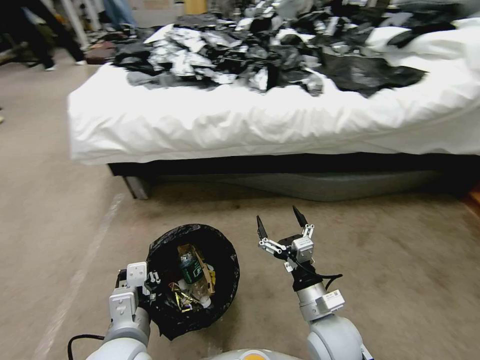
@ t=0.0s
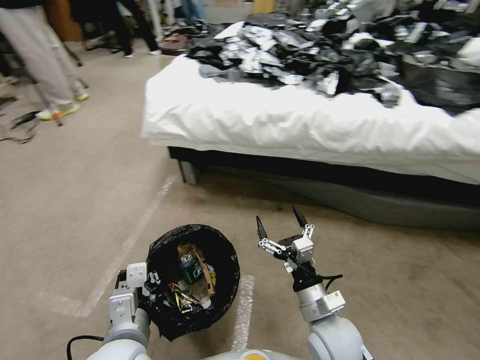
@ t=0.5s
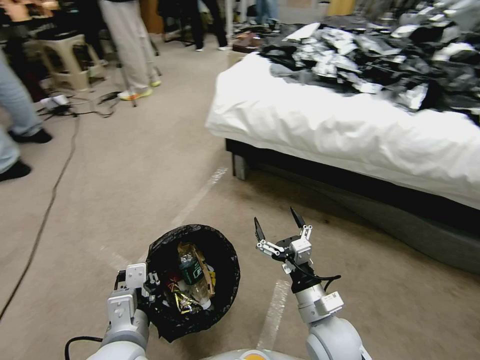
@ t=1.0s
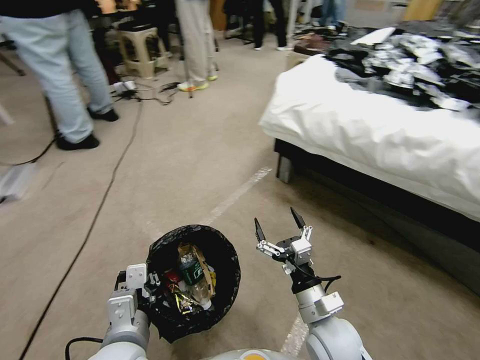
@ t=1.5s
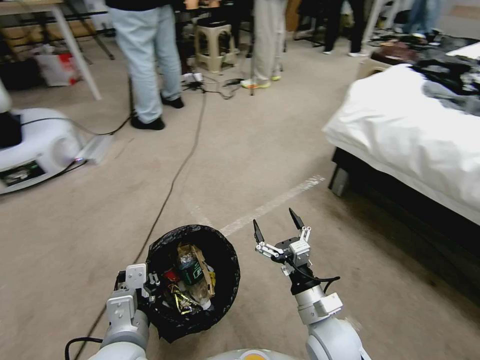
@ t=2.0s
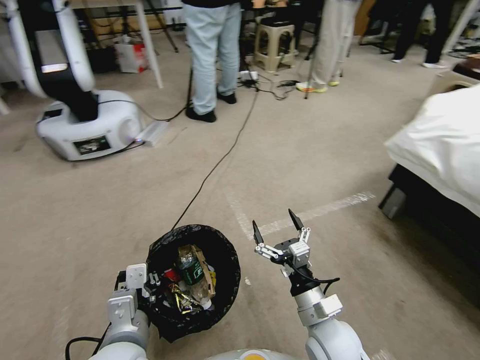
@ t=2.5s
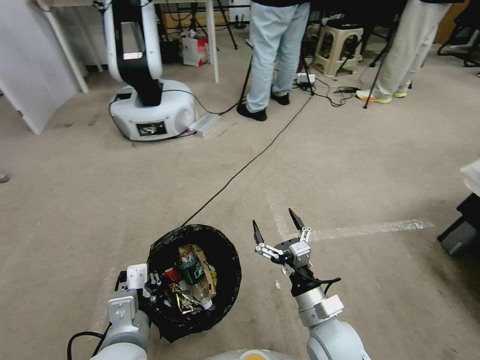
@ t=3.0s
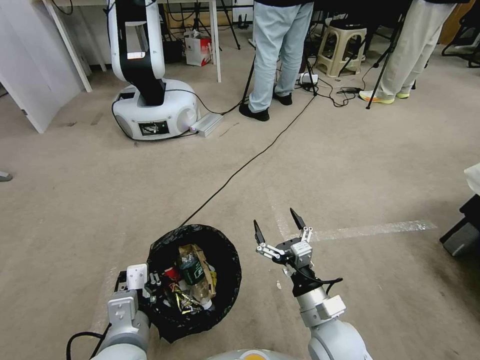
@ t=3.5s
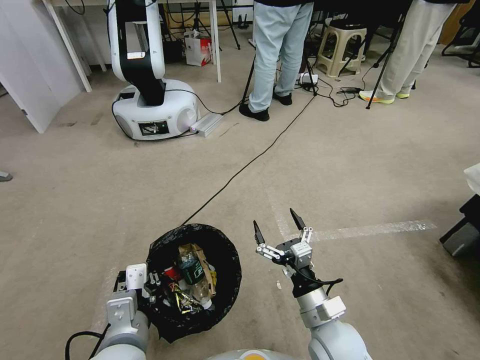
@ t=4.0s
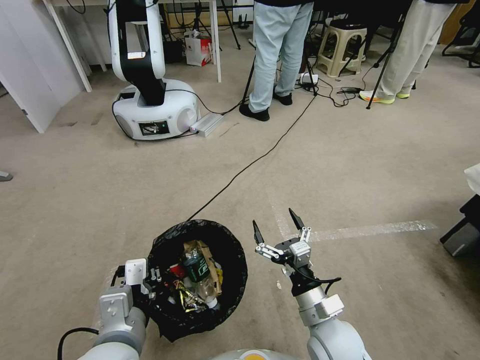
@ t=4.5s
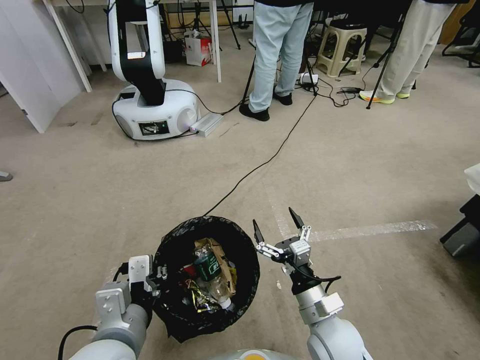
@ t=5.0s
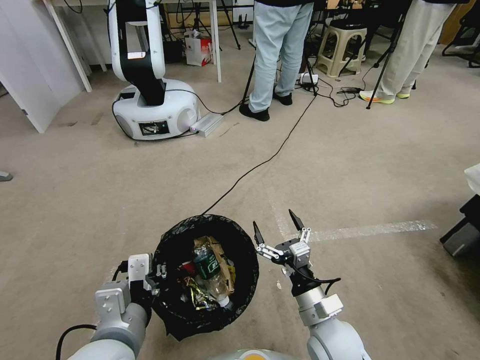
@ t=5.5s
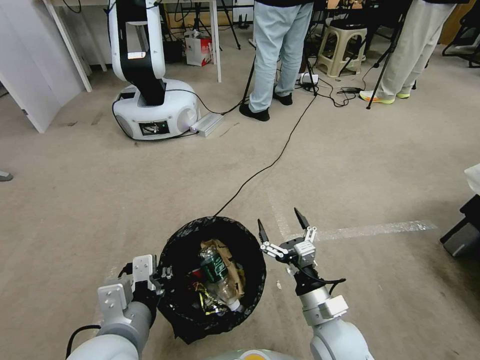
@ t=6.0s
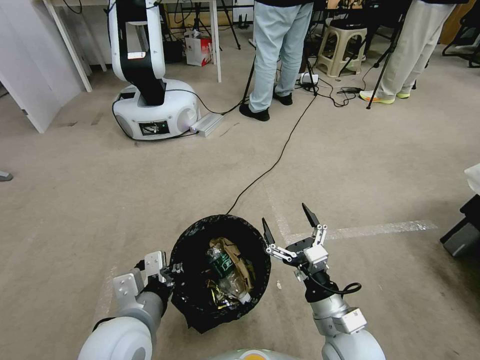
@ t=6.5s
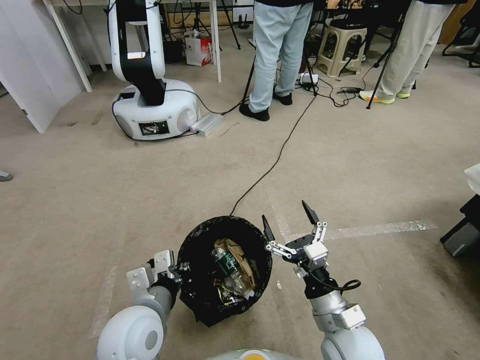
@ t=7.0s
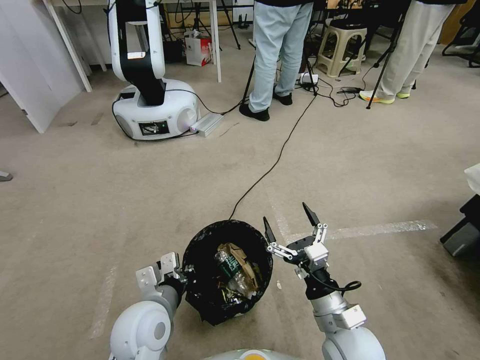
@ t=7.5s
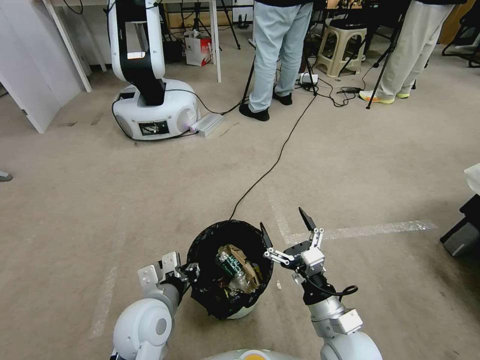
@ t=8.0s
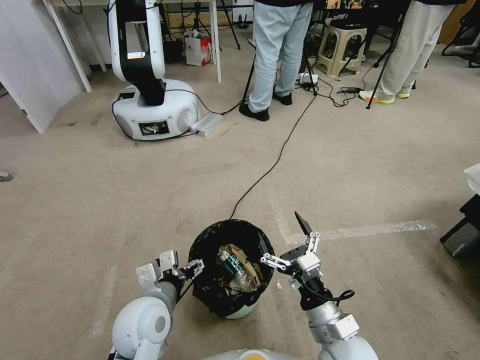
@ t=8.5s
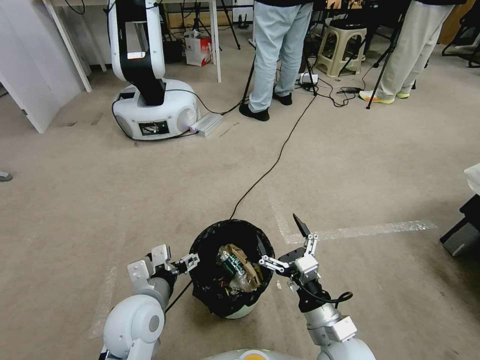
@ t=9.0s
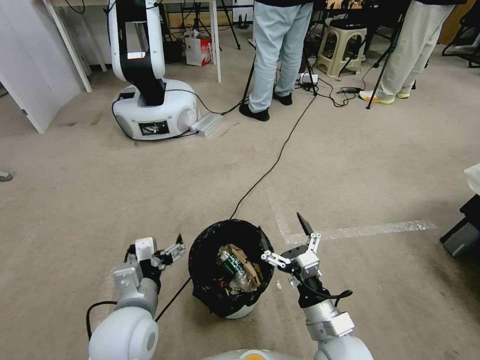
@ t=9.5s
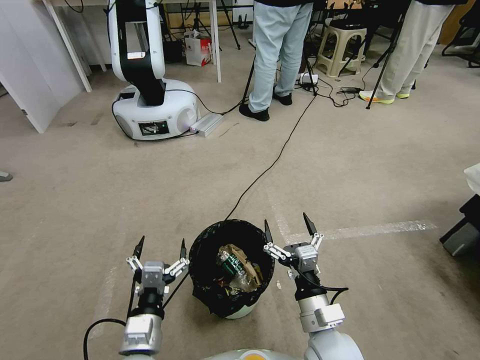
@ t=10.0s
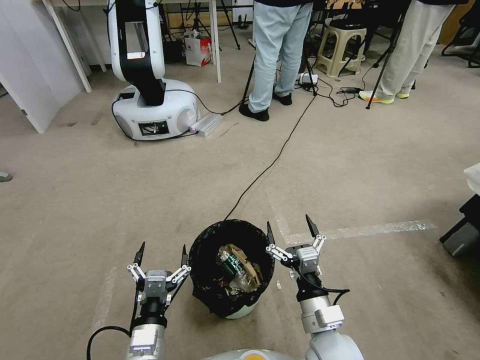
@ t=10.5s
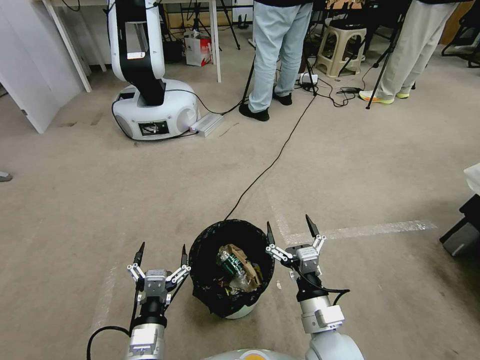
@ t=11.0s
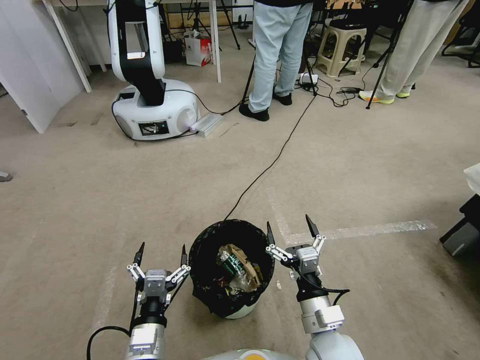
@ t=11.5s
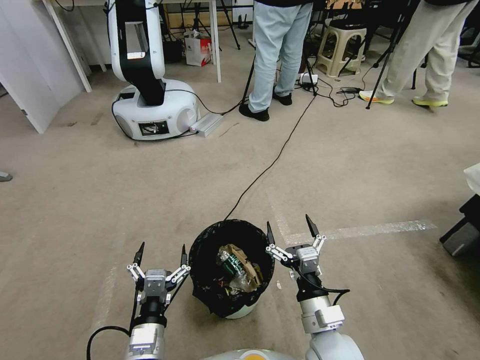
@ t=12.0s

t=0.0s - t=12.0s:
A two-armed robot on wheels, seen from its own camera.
Task of the whole recording: Pick up the trash bin, then pick up the garbage from the floor and place it into the trash bin.
t=4.0s - t=6.0s: The grippers move only a little.
t=6.0s - t=8.0s: The left gripper heads downward and forward, covering about 15 cm.
t=8.0s - t=10.0s: The left gripper heads backward, covering about 10 cm, and opens up.
t=10.0s - t=12.0s: The grippers make only small movements.

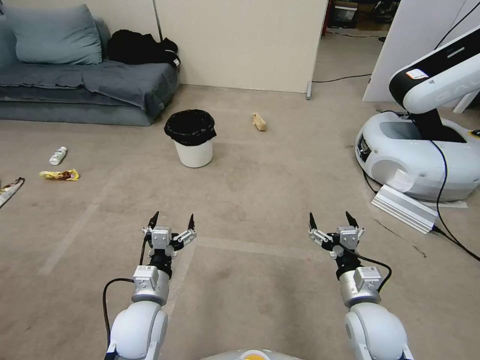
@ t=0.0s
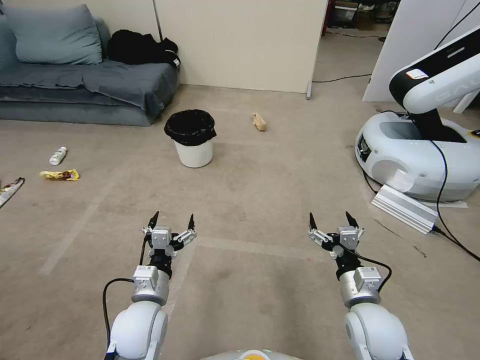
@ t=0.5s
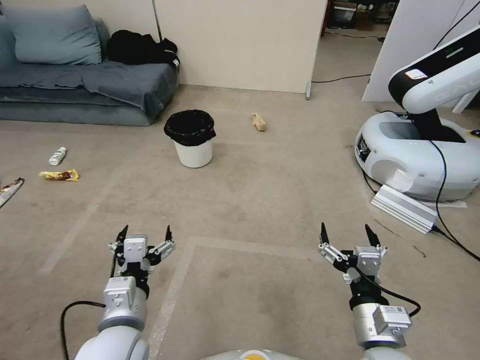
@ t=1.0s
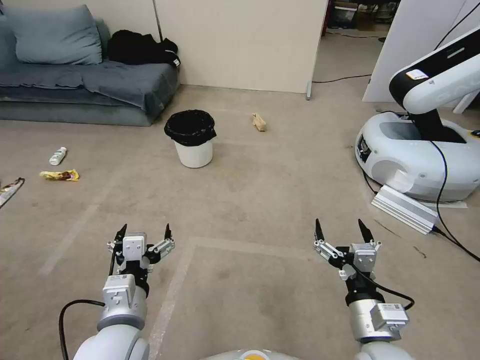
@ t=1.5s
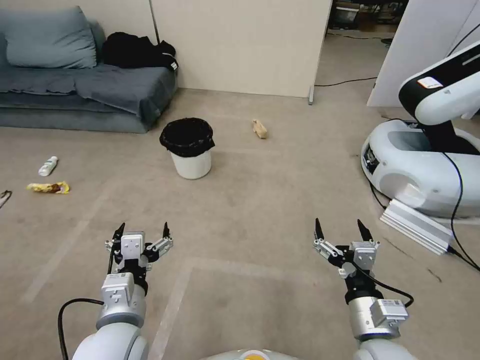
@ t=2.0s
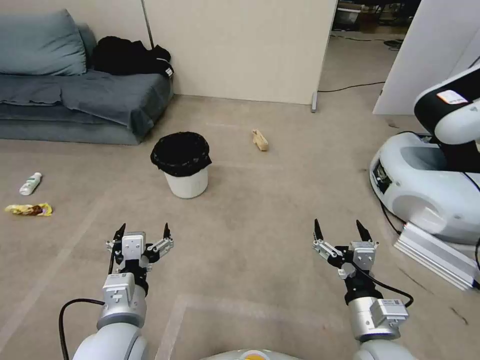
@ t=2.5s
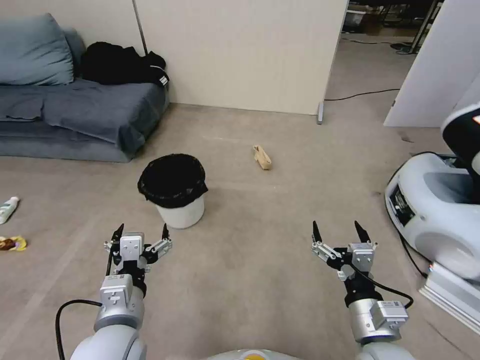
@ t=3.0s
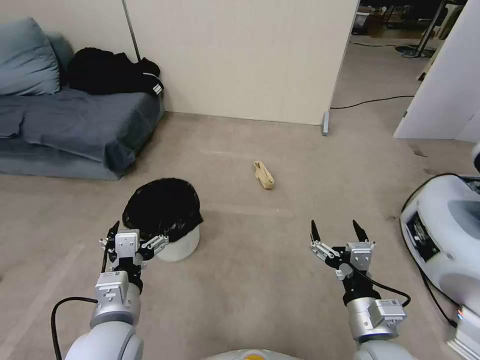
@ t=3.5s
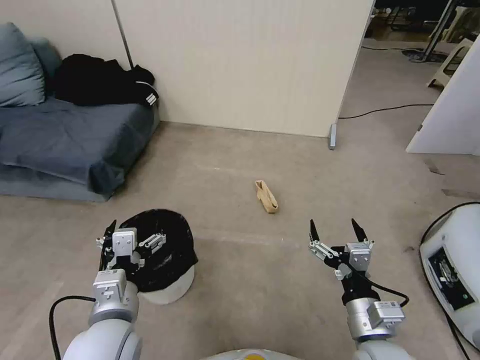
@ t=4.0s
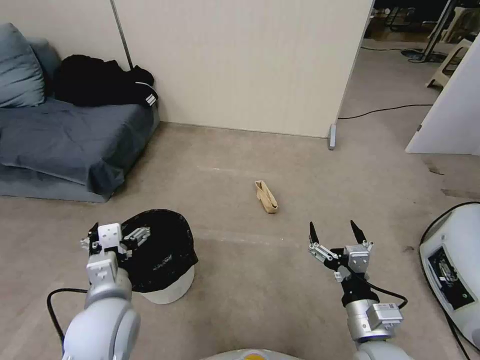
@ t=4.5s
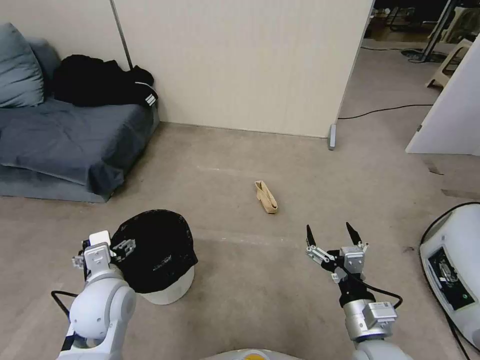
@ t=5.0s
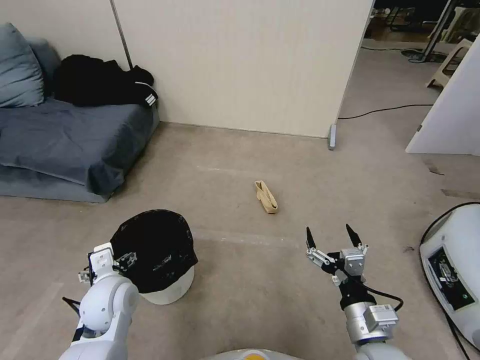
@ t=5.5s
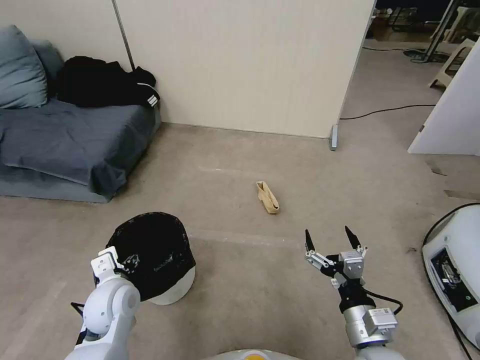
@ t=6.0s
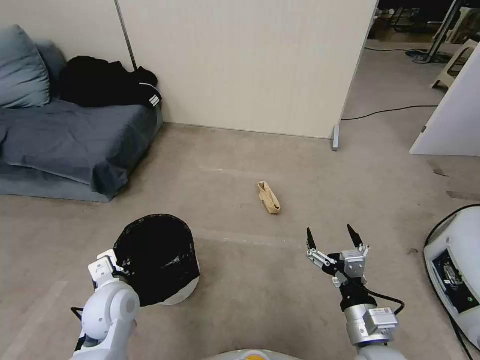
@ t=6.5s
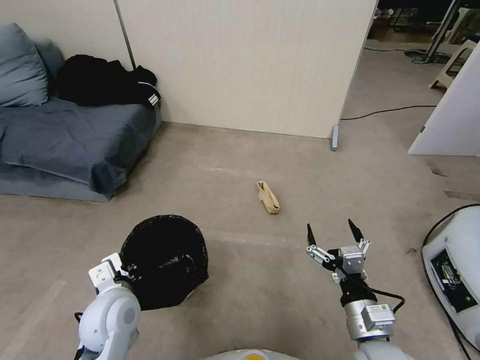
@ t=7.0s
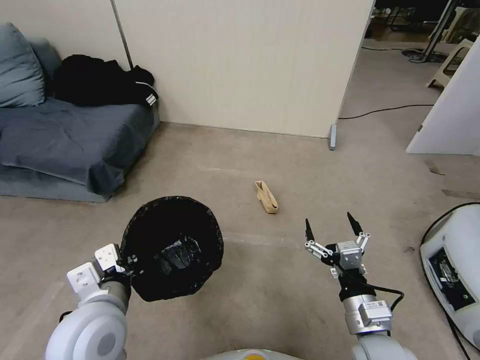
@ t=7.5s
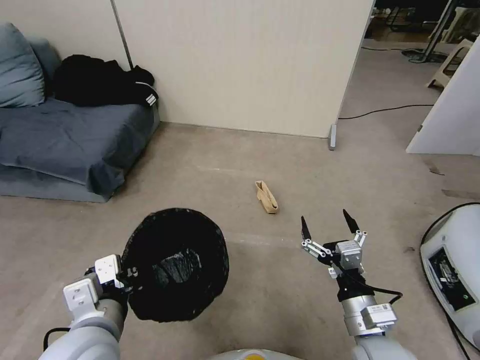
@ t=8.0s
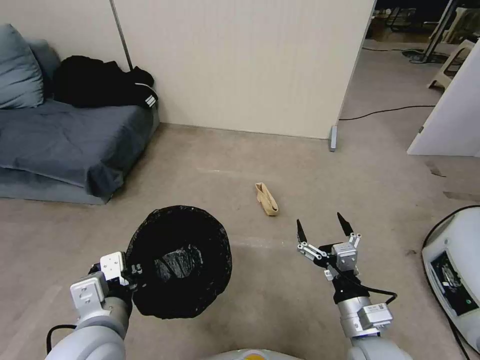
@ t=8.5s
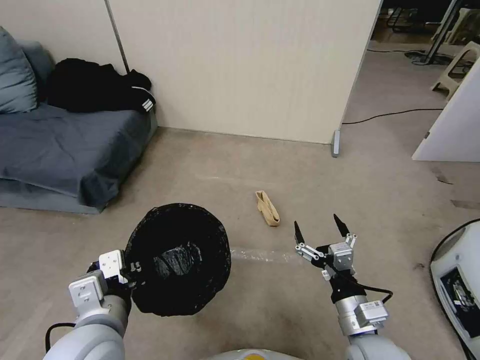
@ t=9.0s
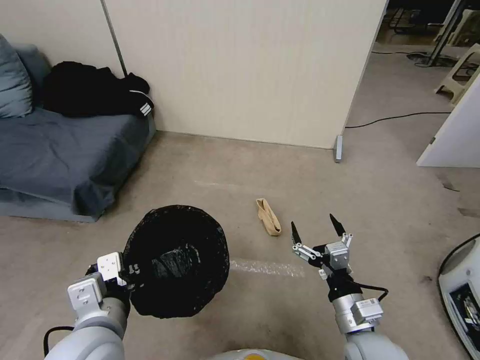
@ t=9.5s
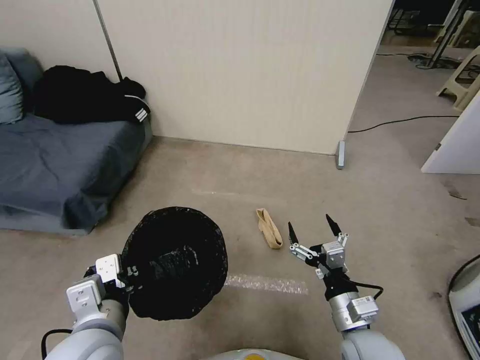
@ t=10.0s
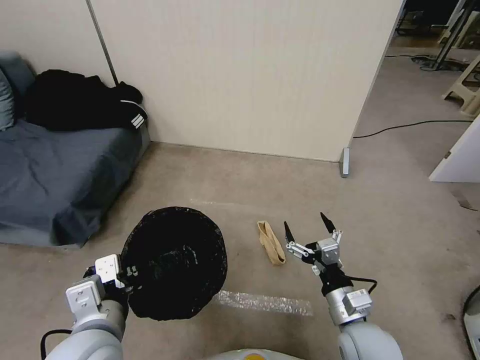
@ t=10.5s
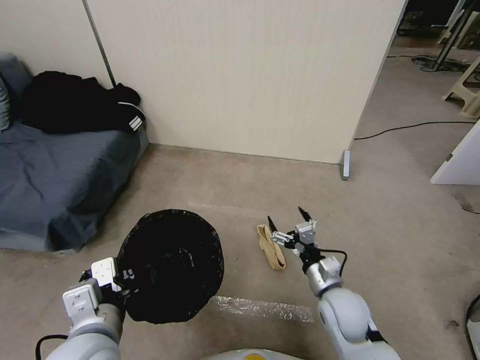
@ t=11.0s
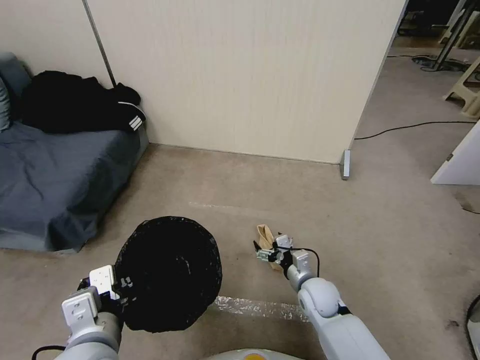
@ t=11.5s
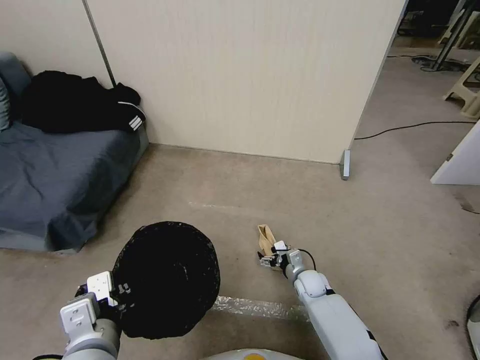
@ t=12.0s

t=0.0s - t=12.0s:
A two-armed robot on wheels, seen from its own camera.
Task of the whole recording: Pick up the trash bin, then pick up the garbage from the floor and place it into the trash bin.
t=4.0s - t=6.0s: The left gripper goes some 15 cm forward, downward and to the left.
t=6.0s - t=8.0s: The left gripper heads upward and backward, covering roughly 15 cm, and closes up.
t=10.0s - t=12.0s: The right gripper goes some 30 cm downward and forward.

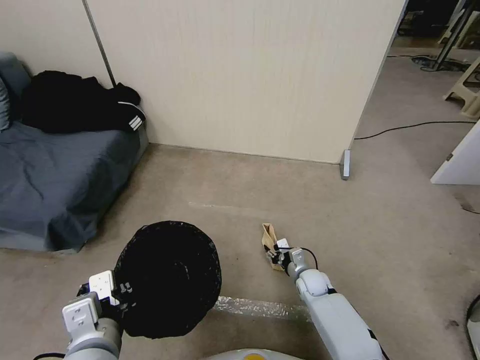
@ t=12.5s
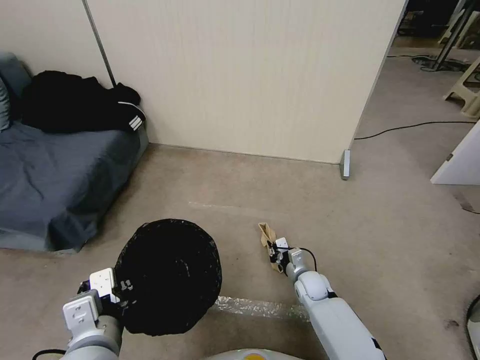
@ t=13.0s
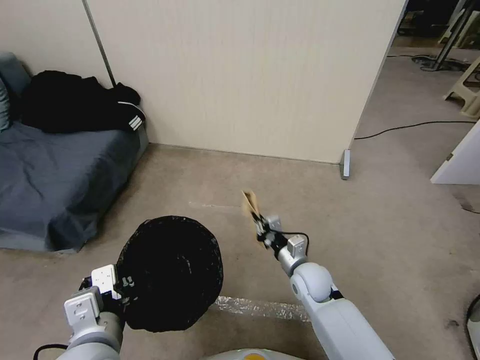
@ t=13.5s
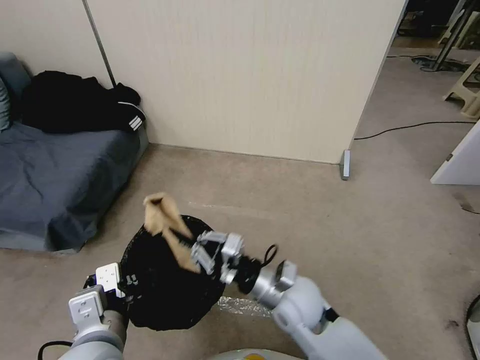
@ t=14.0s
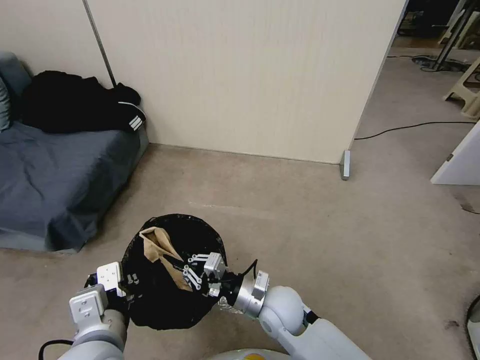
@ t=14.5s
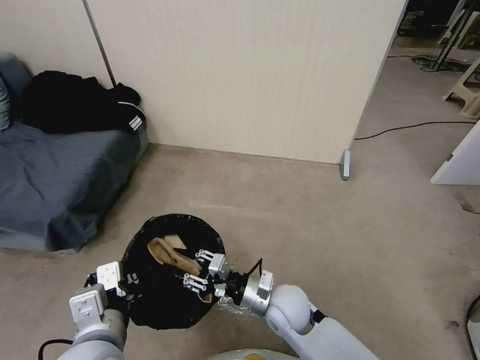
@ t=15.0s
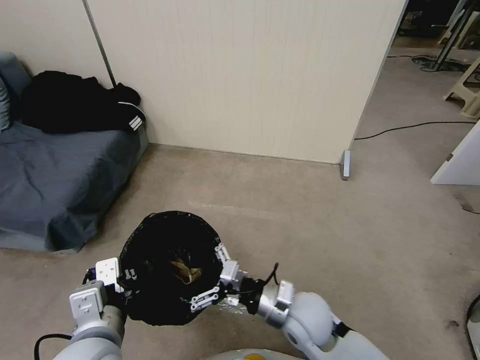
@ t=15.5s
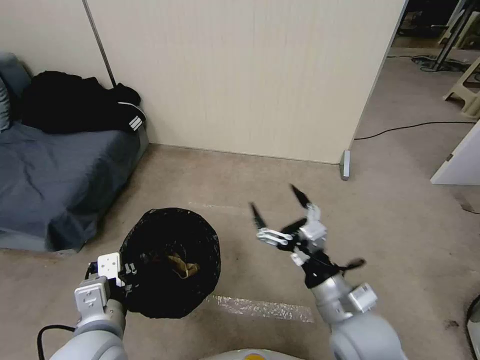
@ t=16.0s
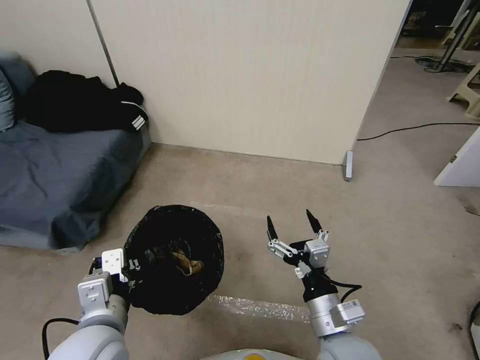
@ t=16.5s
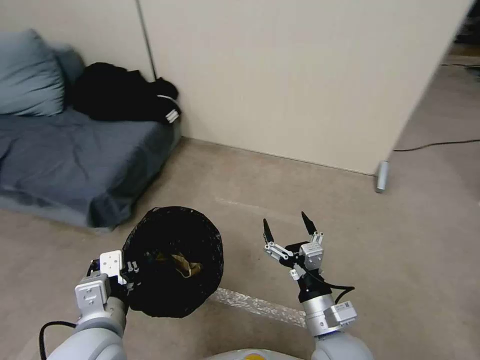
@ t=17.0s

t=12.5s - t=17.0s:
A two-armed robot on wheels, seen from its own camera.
Task of the whole recording: Pick up the trash bin, then pick up the garbage from the floor and place it into the trash bin.
t=12.5s - t=14.5s: The right gripper goes about 25 cm upward, to the left and backward, and closes.
t=14.5s - t=17.0s: The right gripper moves backward, to the right and upward, approximately 15 cm, and opens its fingers.
